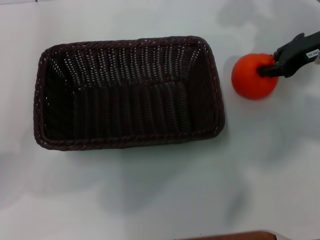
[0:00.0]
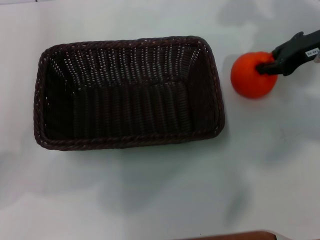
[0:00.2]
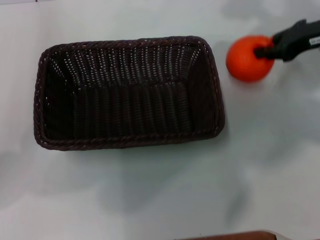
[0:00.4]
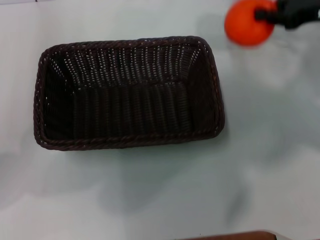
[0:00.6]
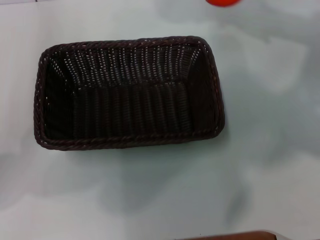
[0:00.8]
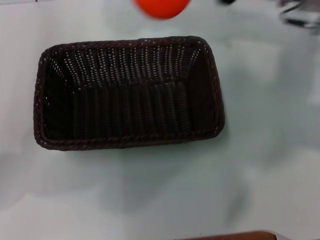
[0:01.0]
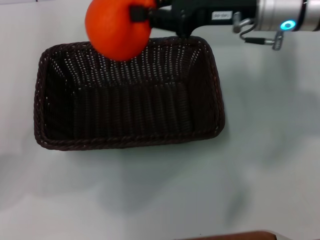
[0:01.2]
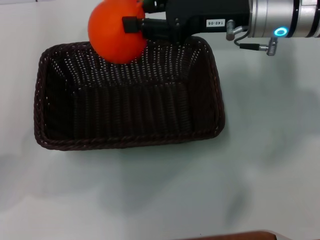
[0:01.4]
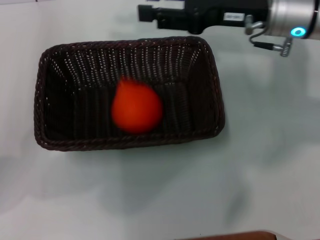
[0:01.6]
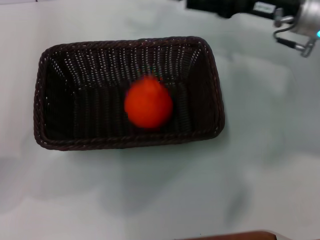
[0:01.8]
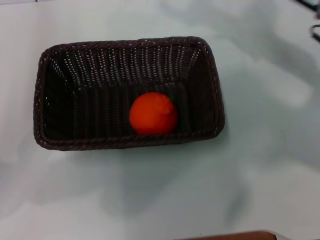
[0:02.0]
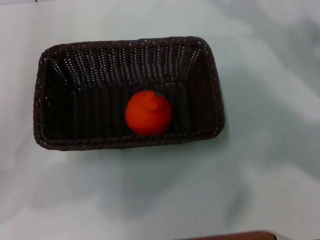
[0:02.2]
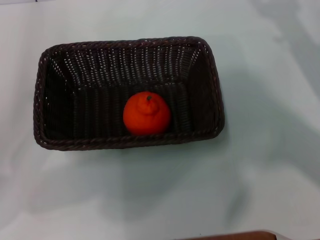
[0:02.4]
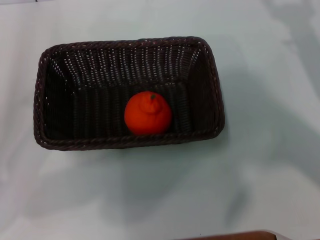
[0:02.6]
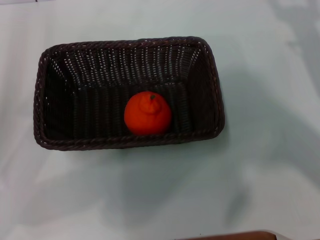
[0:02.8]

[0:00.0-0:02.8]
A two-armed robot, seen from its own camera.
Task of the whole recording: the left gripper pick up the black basket and place it horizontally in the middle of the table, the right gripper pick up the orange and place it into the black basket.
Step, 0:00.6 to 0:01.6: Place the orange into the dark basket with the right gripper.
0:00.0 to 0:01.4: The right gripper heads to the left, covering some 10 cm.
0:01.4 to 0:02.8: The right gripper heads to the right, backward and downward, covering some 20 cm, and opens up.

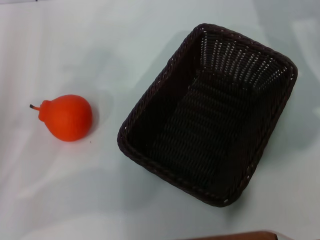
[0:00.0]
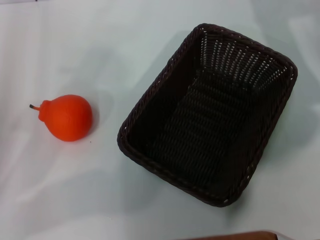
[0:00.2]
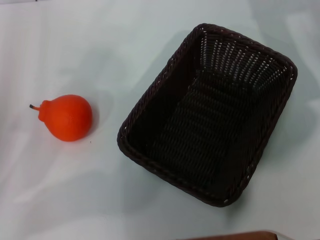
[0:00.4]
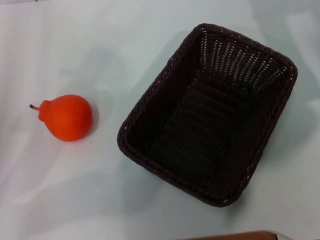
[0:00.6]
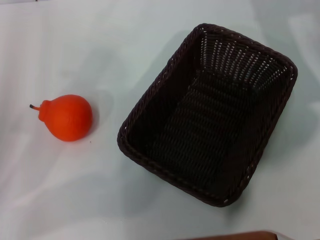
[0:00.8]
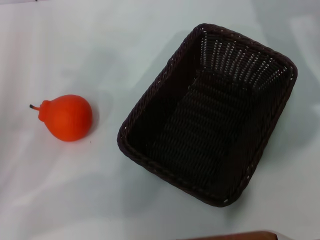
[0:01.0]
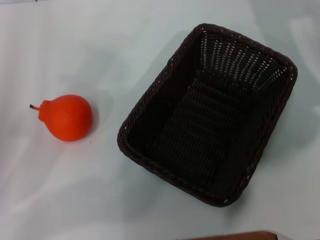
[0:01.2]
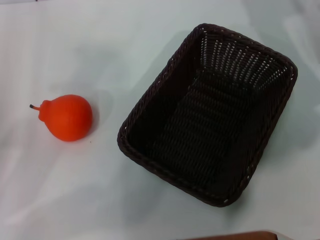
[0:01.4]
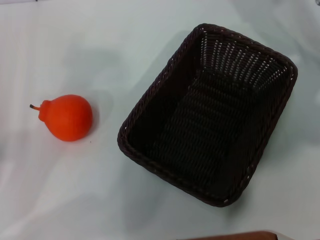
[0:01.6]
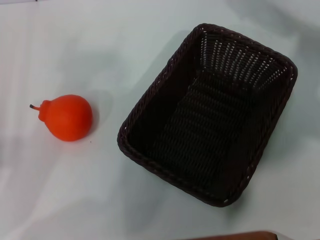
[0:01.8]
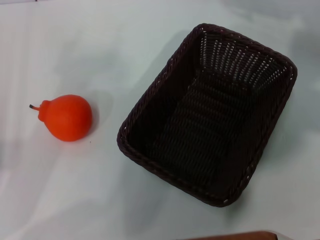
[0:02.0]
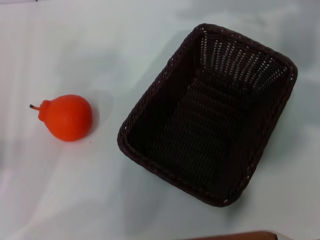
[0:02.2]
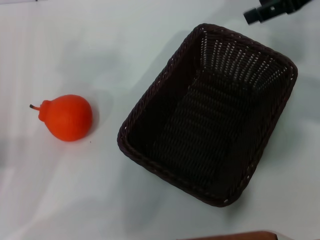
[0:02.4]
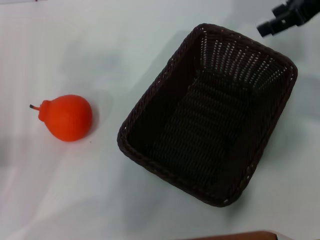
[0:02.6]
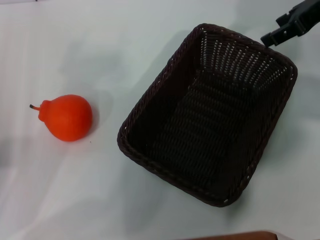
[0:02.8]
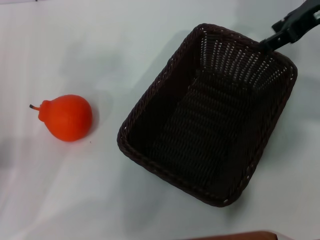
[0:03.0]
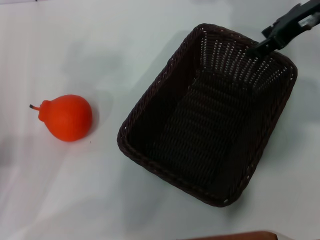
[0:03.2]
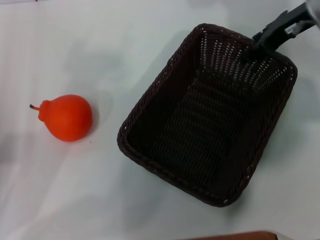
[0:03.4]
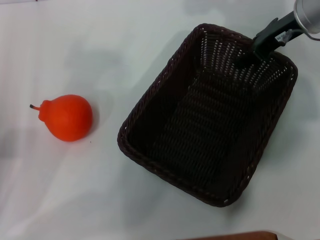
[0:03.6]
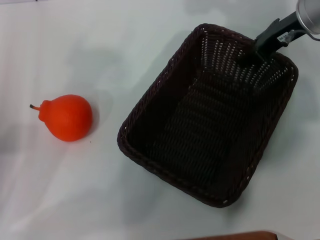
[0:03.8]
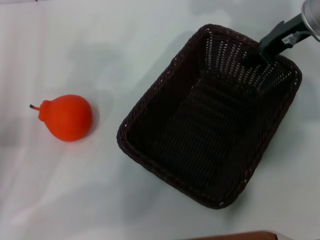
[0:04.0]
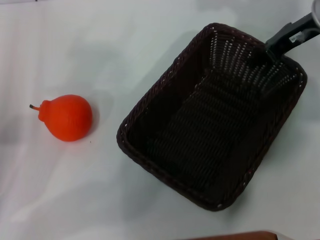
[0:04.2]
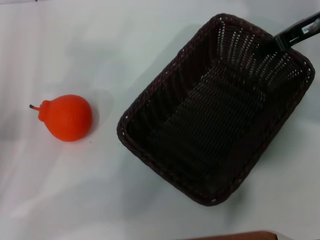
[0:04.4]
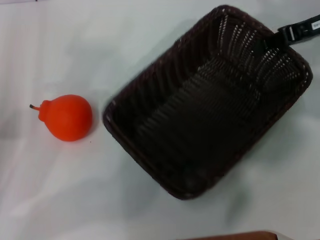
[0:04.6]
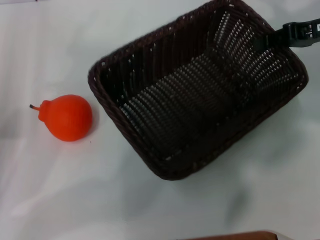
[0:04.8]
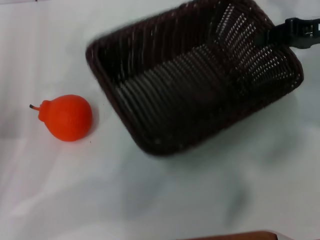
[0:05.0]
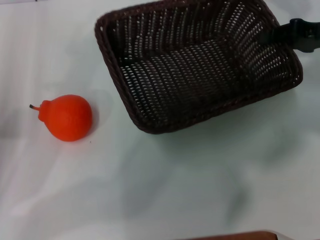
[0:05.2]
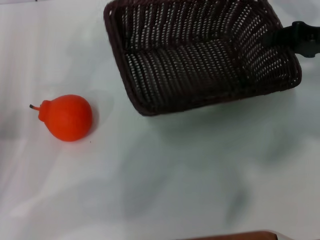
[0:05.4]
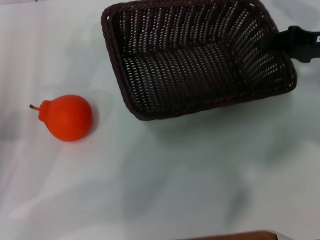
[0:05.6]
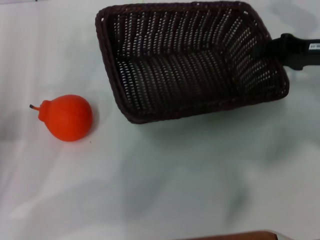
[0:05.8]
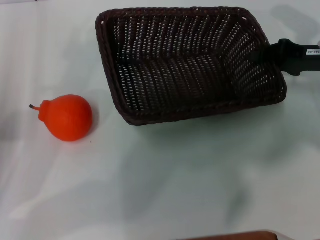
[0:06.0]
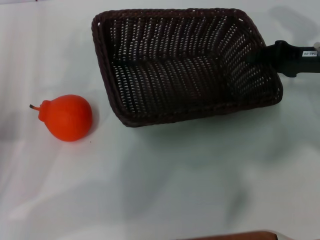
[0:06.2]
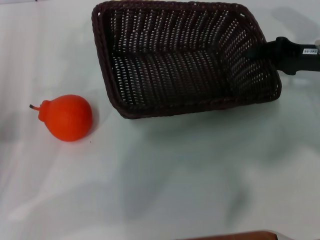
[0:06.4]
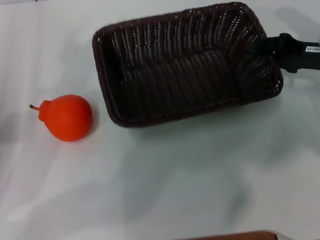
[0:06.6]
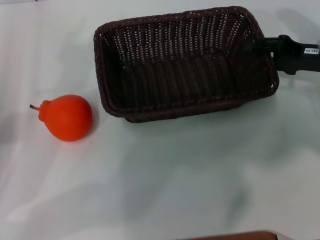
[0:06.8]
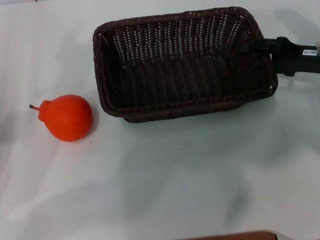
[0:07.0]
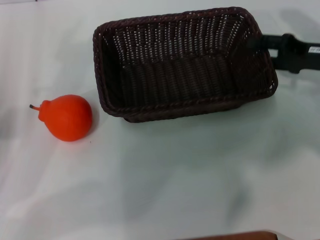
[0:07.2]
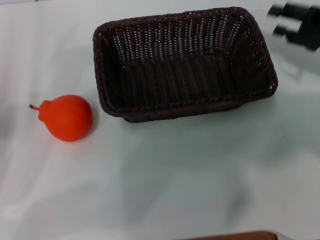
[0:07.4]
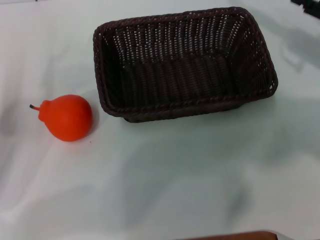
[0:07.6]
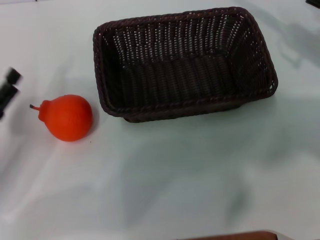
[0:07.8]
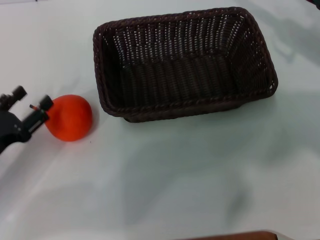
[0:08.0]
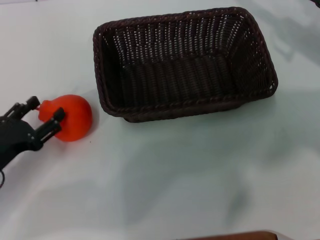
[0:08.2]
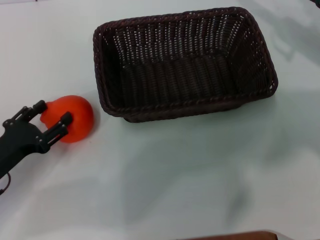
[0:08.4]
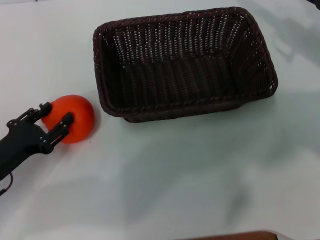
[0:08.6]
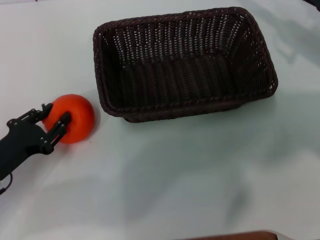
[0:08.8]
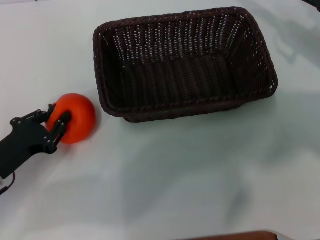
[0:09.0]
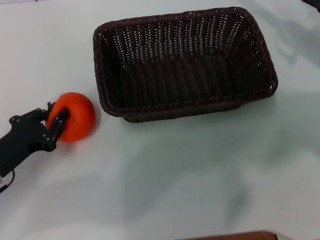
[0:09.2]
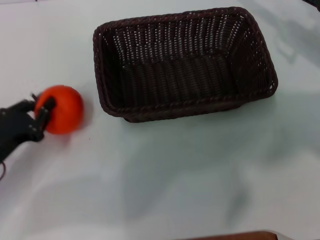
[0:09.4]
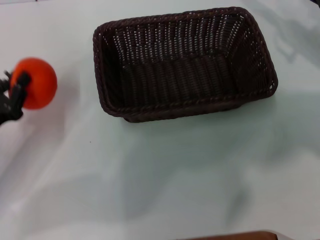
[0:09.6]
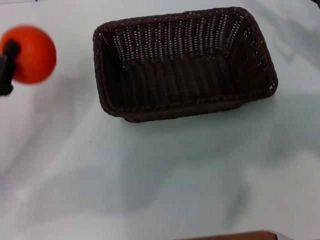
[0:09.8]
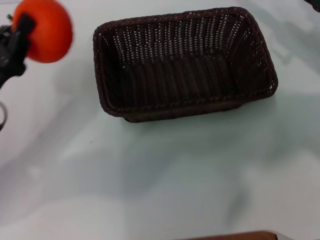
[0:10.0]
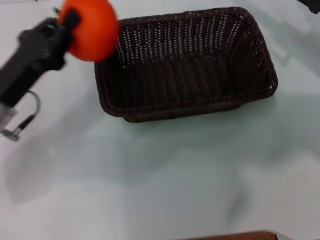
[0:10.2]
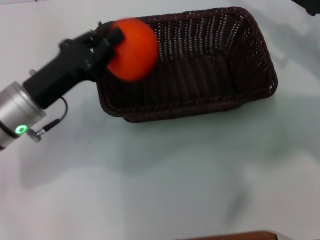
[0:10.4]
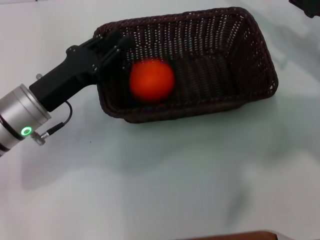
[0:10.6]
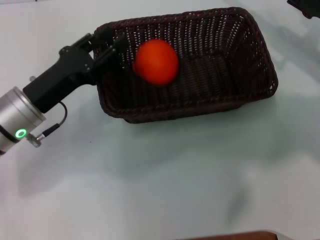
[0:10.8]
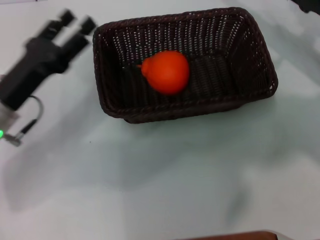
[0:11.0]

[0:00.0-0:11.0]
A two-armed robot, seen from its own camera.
Task of the whole recording: the right gripper pick up the black basket and place it horizontally in the middle of the table, the left gripper pick up the orange and place it into the black basket.
Step, 0:00.0 to 0:04.4: Pick up the dark basket with the right gripper.
Step, 0:04.6 to 0:07.4: Place the dark basket in the center of view with the right gripper.
Step, 0:07.6 to 0:09.4: Pick up the orange with the left gripper.
Step, 0:09.6 to 0:10.6: Place the orange into the dark basket with the left gripper.
0:01.6 to 0:03.2: The right gripper moves upward, roughly 5 cm.
0:03.2 to 0:04.8: The right gripper moves to the right, some 5 cm, and closes.
0:04.8 to 0:06.2: The right gripper heads downward, covering approximately 5 cm.
0:06.2 to 0:07.8: The right gripper opens its fingers.
0:07.8 to 0:09.4: The left gripper closes up.
0:09.4 to 0:11.0: The left gripper moves upward, about 5 cm, and opens its fingers.

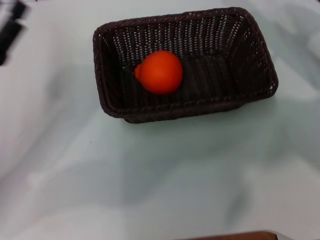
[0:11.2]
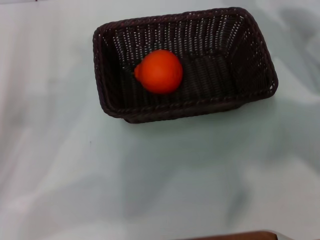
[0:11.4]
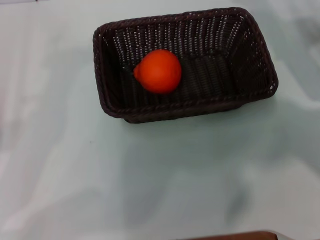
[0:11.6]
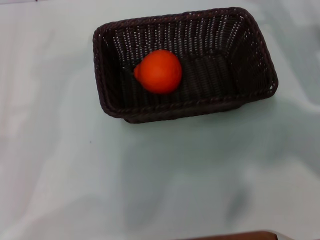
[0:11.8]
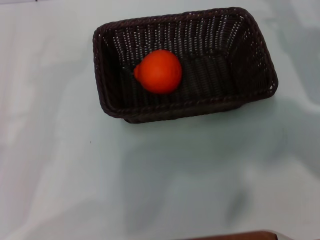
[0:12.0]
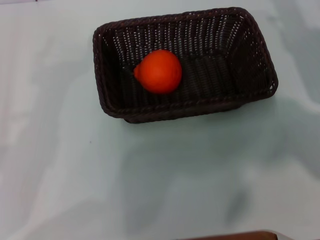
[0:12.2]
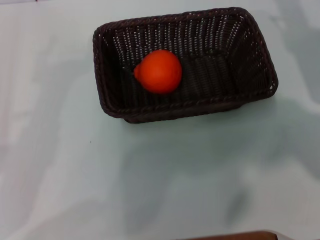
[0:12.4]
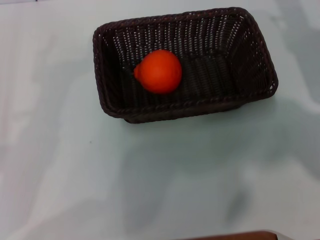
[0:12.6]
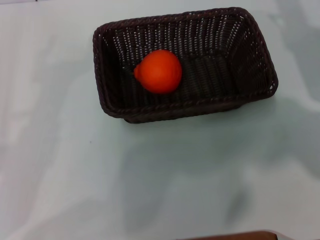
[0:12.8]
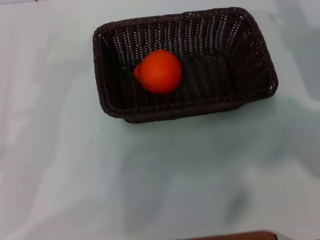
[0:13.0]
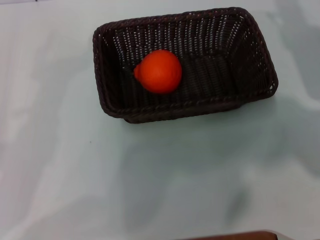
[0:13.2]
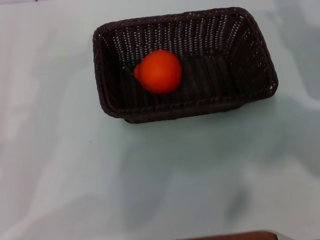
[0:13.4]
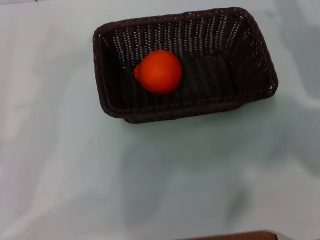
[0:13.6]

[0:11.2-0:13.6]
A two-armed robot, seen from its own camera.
Task of the whole recording: the right gripper pick up the black basket and place it horizontally in the middle of the table, the left gripper pick up the orange and place it into the black basket.
0:11.2 to 0:12.4: The left gripper shifts approximately 10 cm backward and to the left.
0:12.4 to 0:13.6: Neither gripper changes place.
